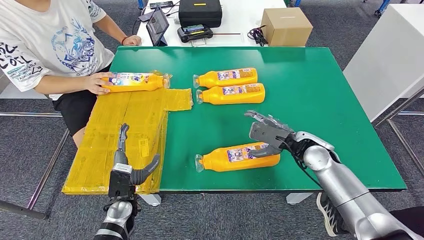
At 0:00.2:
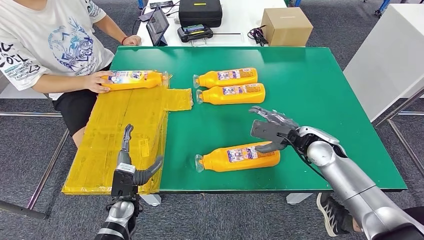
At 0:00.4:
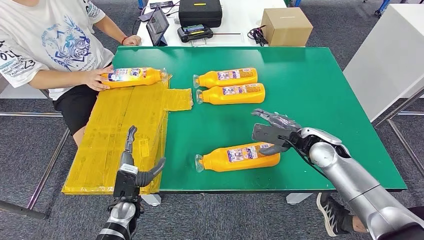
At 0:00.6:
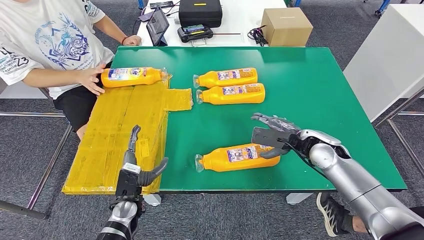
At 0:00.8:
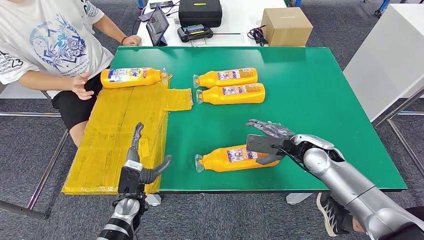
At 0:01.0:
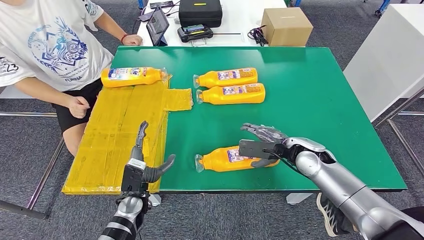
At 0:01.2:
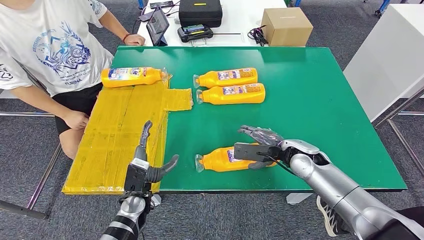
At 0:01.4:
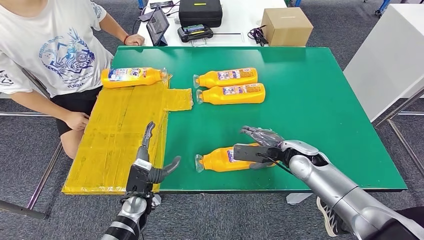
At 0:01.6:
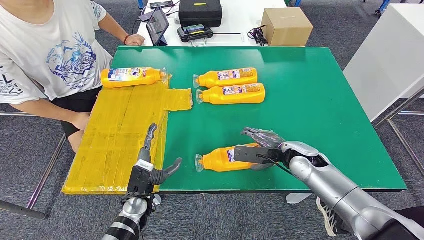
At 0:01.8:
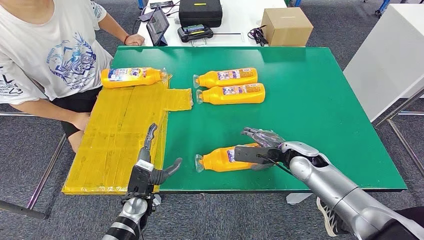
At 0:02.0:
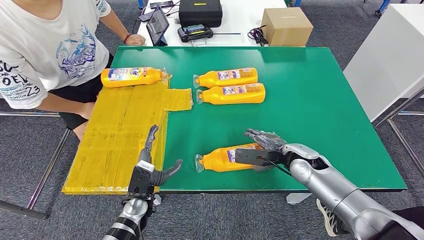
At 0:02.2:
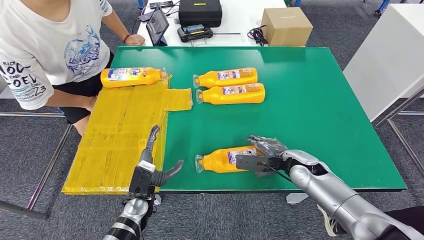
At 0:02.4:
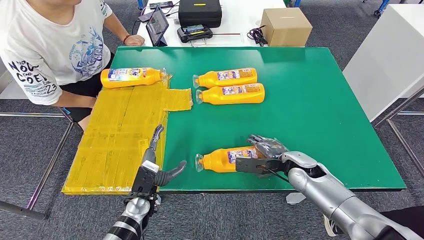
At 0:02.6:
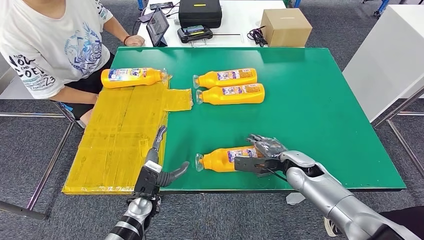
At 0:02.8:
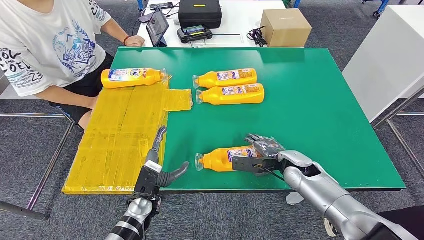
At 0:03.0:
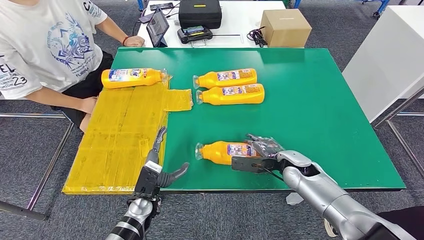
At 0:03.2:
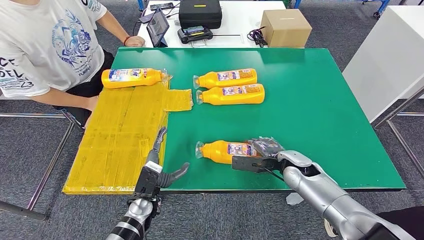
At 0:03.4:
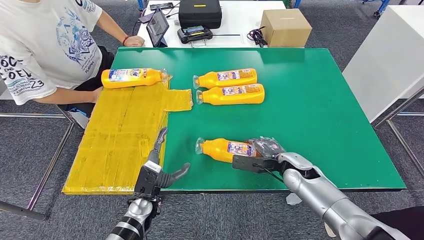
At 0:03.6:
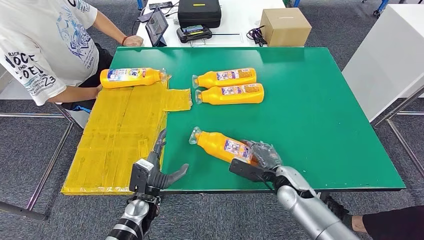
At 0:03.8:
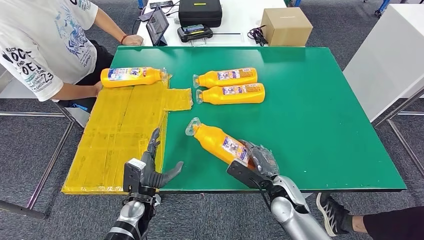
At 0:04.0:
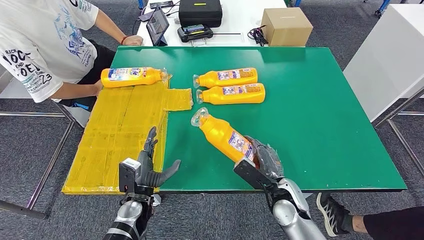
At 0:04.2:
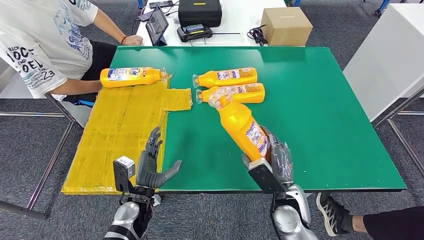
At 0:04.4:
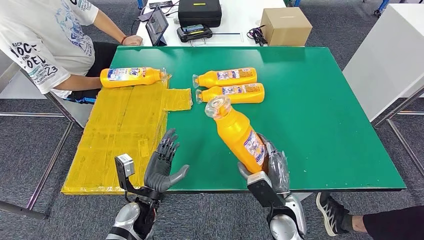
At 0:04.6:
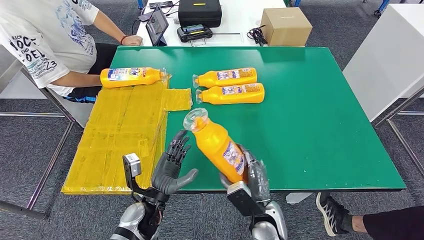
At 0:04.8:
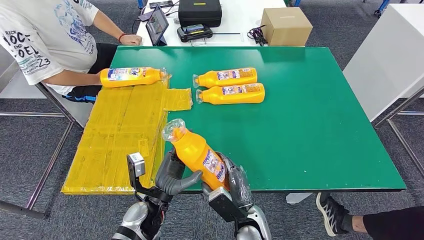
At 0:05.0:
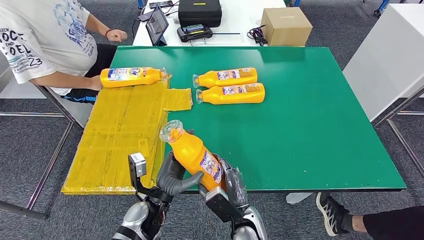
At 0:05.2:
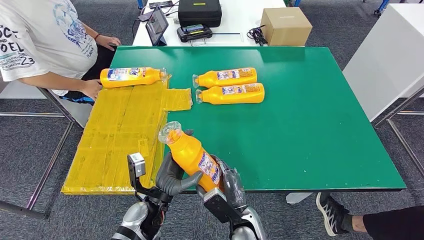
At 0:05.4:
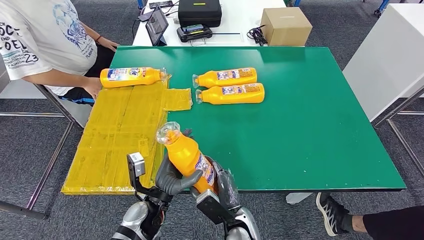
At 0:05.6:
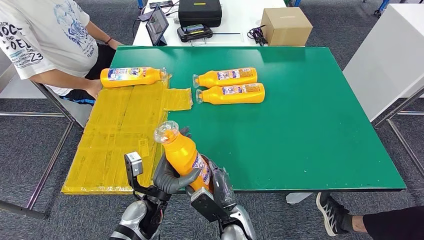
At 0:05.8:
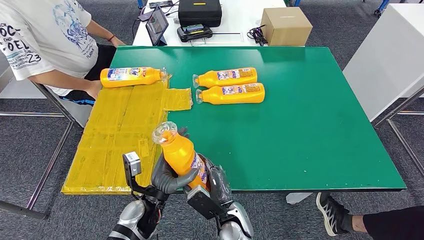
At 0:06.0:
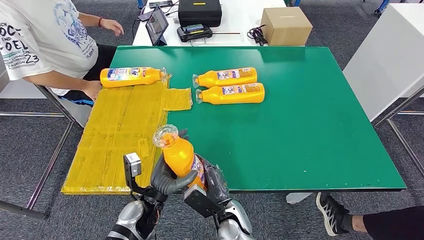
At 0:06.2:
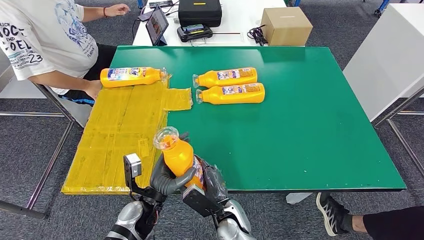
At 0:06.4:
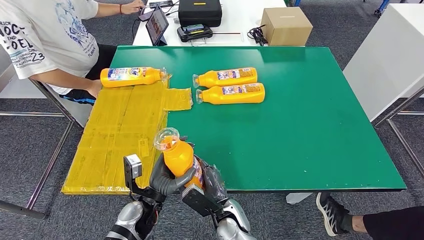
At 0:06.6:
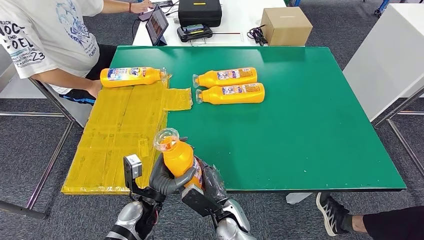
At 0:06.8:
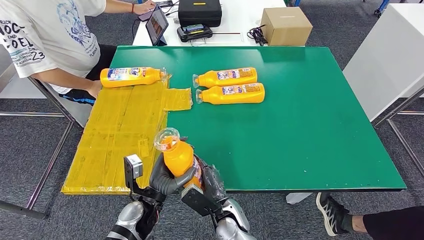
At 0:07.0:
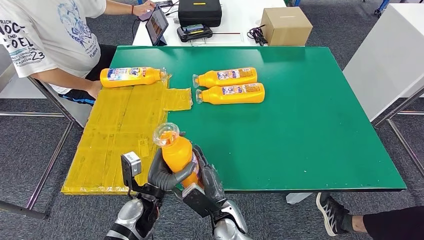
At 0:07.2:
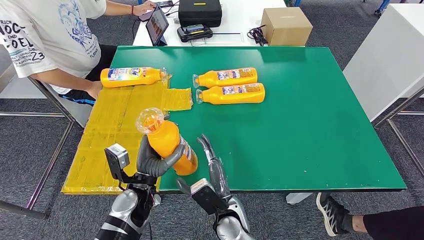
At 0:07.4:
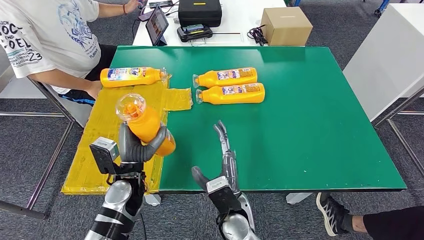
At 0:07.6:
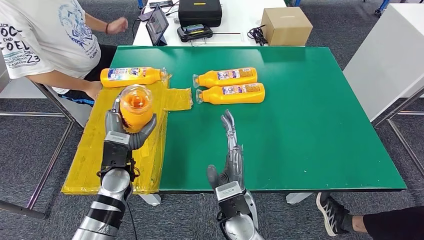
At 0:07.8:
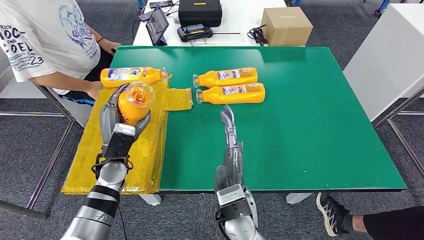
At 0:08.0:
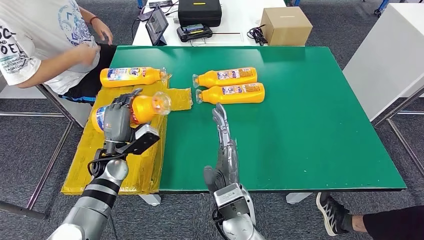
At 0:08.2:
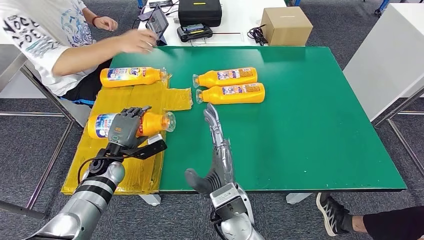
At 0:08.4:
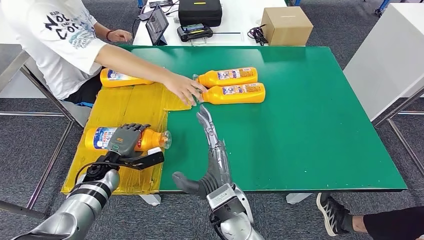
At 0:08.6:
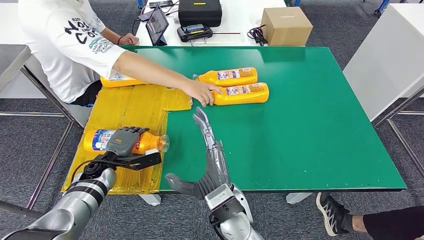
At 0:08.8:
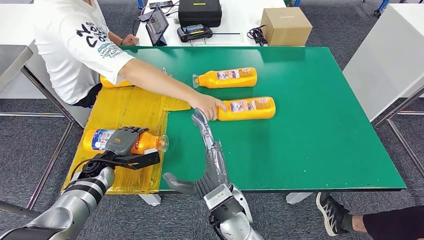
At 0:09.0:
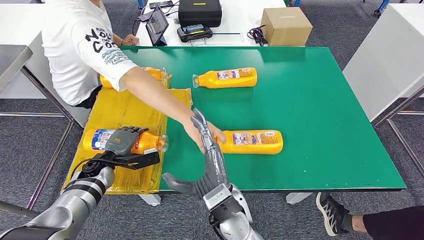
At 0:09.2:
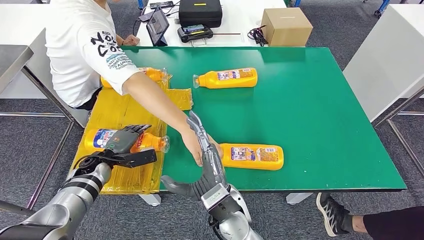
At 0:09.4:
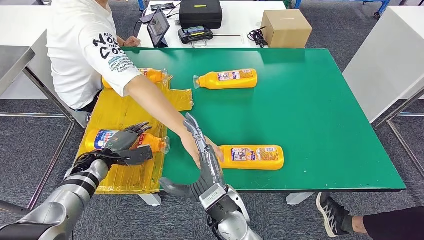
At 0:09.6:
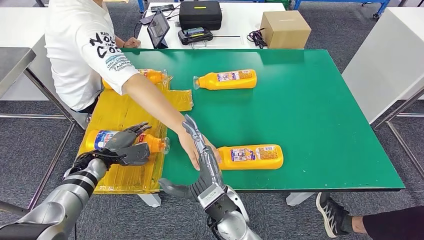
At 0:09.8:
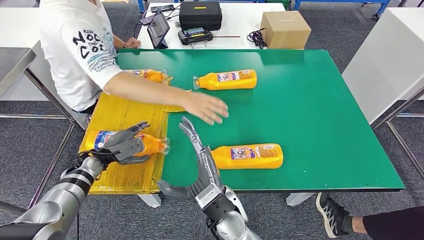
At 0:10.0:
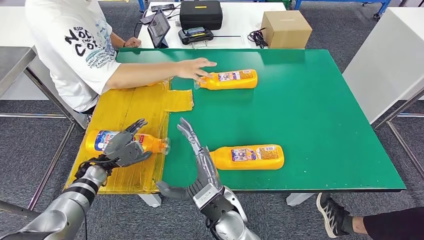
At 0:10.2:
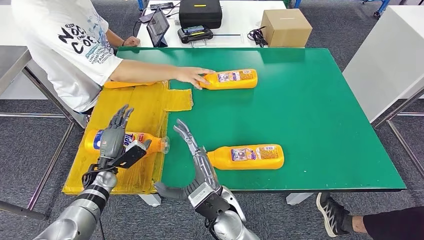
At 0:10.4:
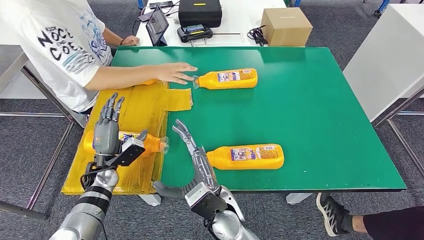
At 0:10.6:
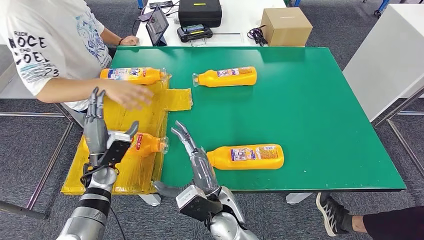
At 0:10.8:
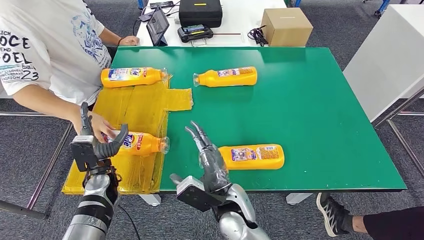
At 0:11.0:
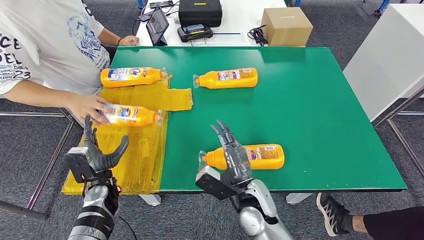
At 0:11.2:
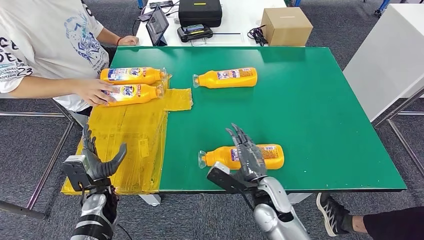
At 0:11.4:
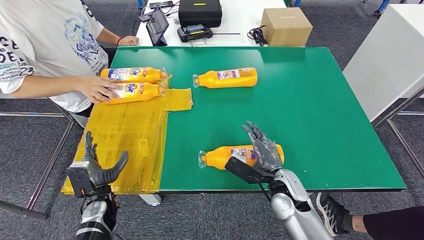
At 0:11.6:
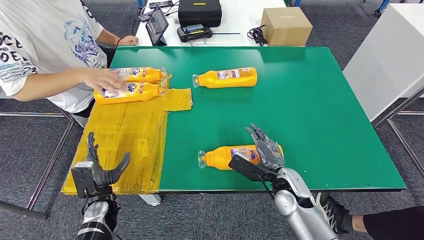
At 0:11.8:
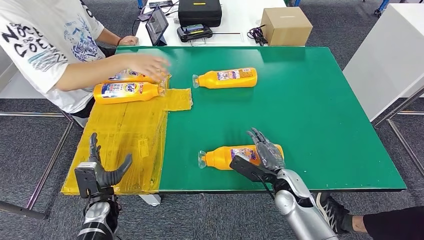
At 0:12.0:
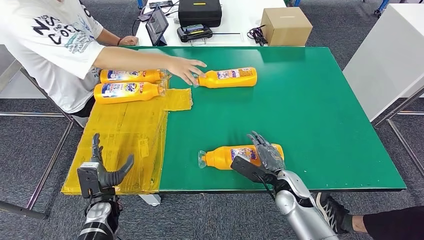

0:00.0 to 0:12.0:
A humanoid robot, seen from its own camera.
Step, 0:00.0 to 0:05.4: Pick up the fast-moving consumer goods bottle from the table.
Step, 0:05.8 to 0:09.2: Flip the fast-moving consumer goods bottle to the front side.
0:04.4 to 0:06.0: The right hand shifts some 15 cm to the left.
0:06.0 to 0:07.6: The left hand travels forward, upward and to the left by roughly 10 cm. The right hand is displaced upward by approximately 10 cm.

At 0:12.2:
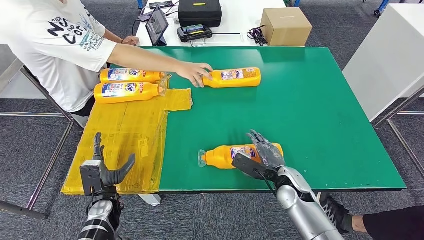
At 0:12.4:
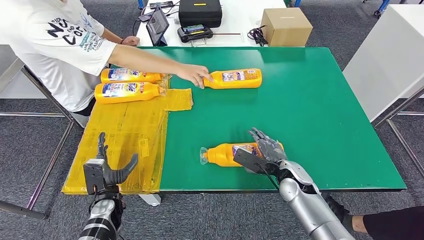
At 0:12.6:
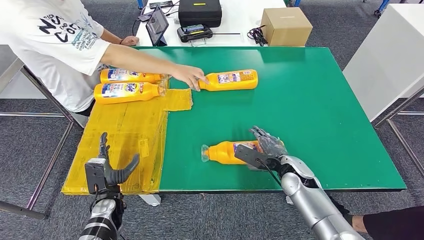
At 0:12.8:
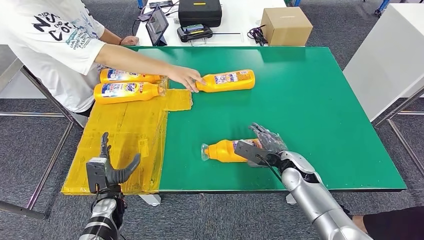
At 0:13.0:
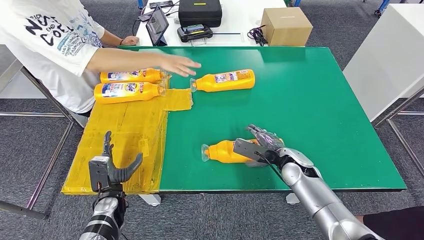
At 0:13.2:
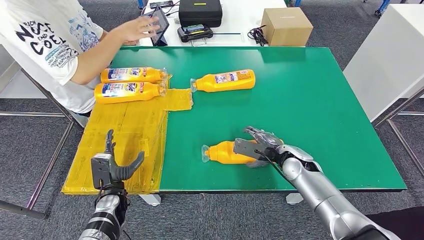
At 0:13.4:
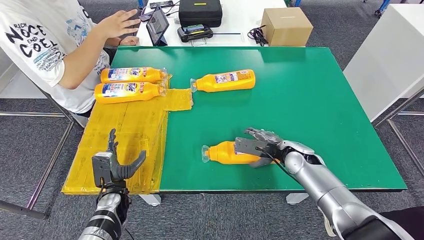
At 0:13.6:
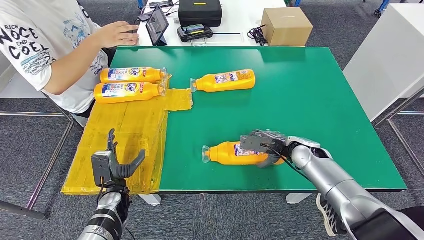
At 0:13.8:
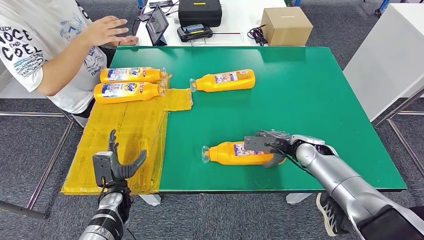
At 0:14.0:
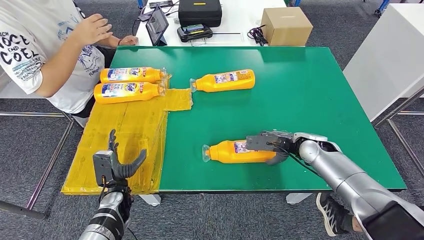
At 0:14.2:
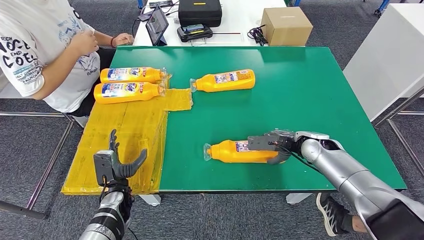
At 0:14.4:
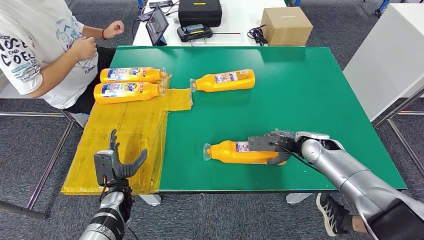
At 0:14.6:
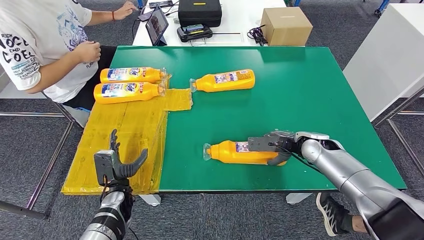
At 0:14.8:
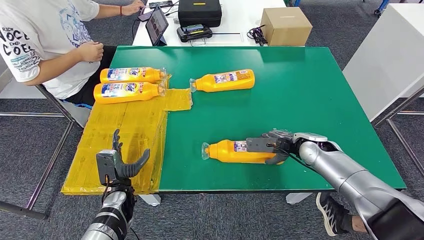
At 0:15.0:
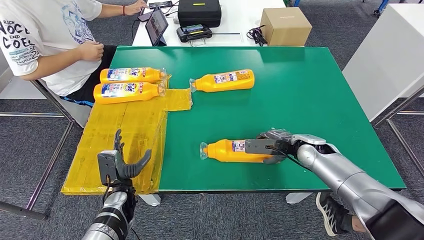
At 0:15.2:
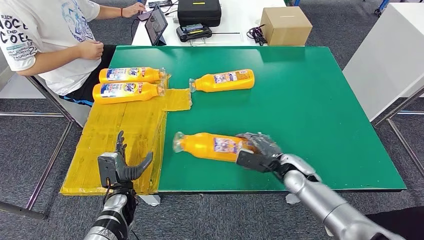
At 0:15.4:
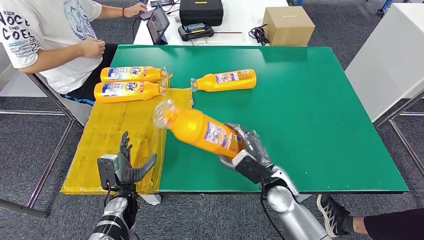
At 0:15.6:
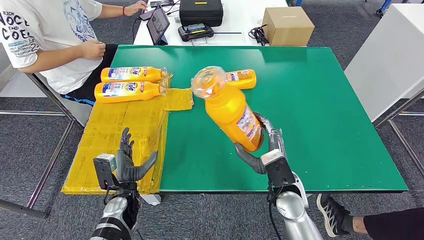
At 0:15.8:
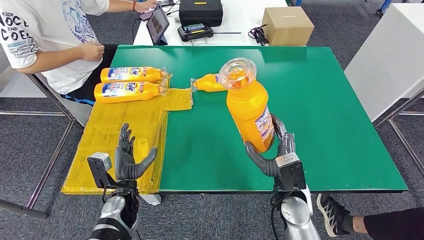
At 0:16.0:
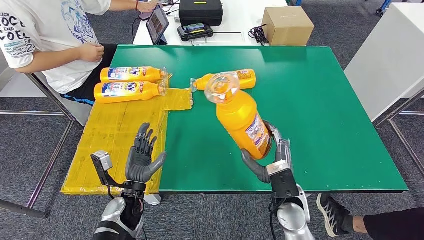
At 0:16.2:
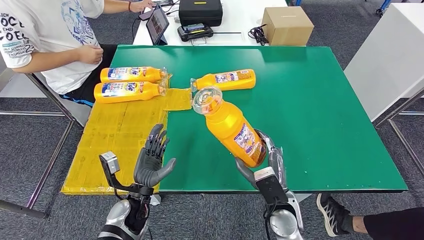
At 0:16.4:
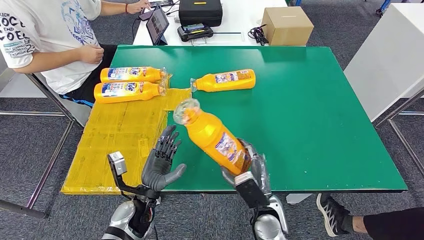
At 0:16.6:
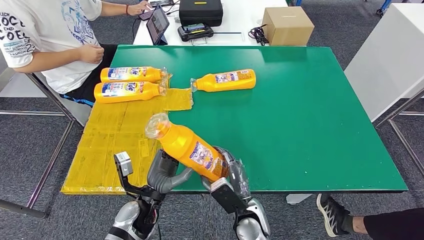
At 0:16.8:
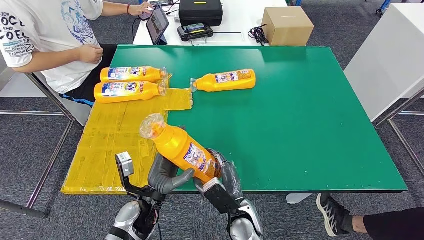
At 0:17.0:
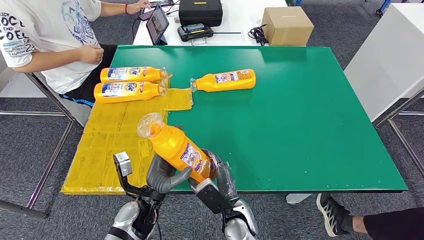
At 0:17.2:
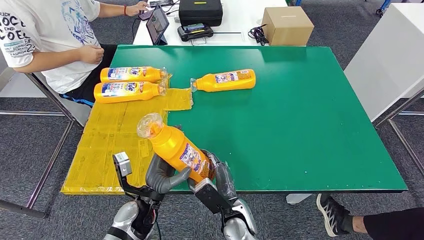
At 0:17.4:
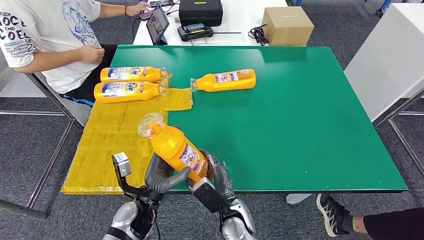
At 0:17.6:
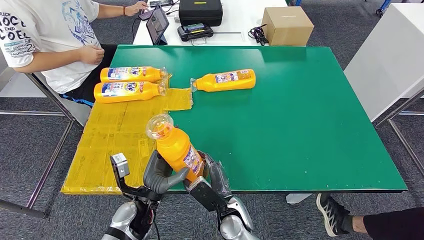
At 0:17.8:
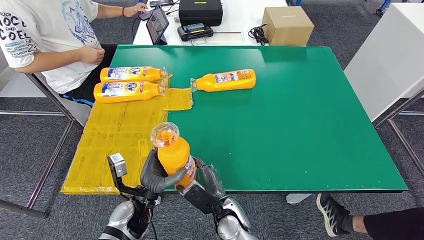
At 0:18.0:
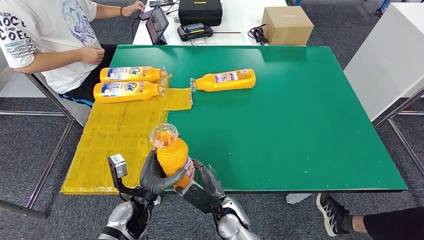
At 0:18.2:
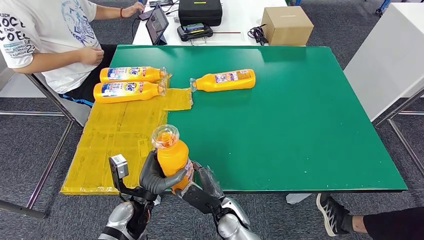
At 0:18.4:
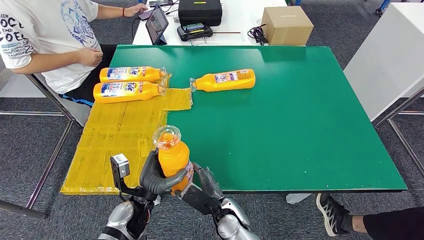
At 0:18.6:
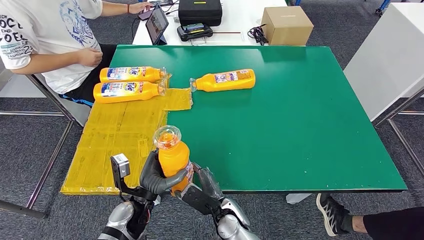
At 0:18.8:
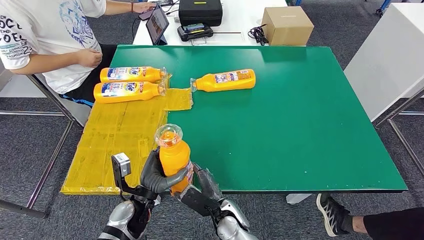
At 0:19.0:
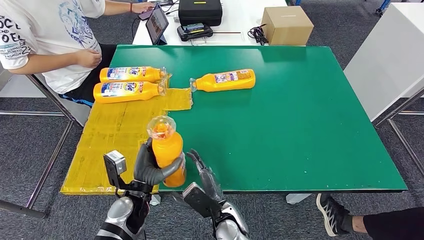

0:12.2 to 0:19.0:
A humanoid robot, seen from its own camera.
Step, 0:12.2 to 0:17.2: Pick up the fast-moving consumer goods bottle from the table.
0:13.6 to 0:15.0: The hands make only small movements.
0:16.2 to 0:17.6: The right hand moves to the left and downward, about 15 cm.
0:17.6 to 0:19.0: The hands make only small movements.
